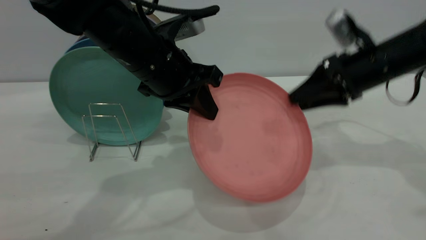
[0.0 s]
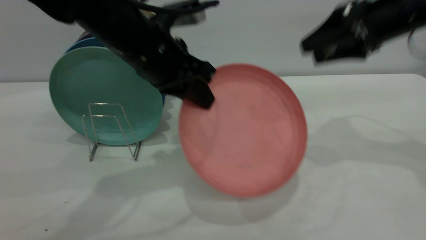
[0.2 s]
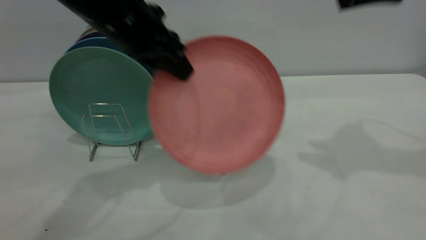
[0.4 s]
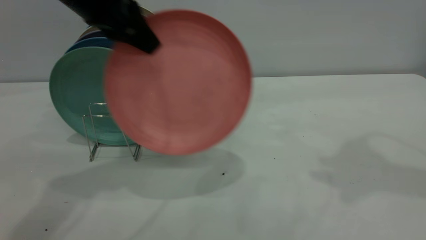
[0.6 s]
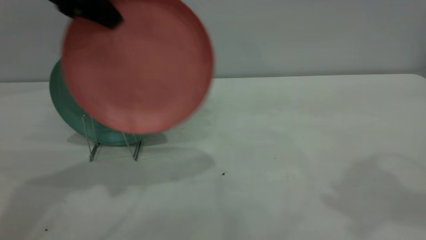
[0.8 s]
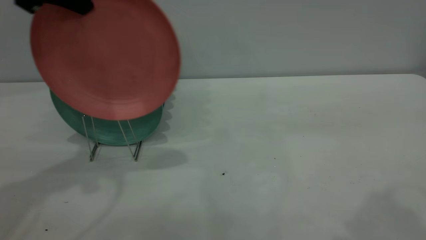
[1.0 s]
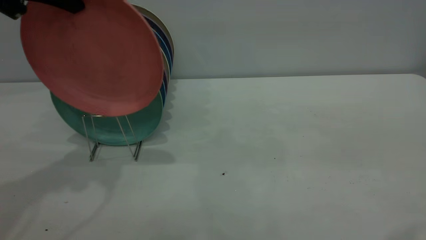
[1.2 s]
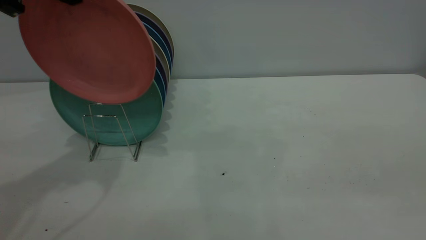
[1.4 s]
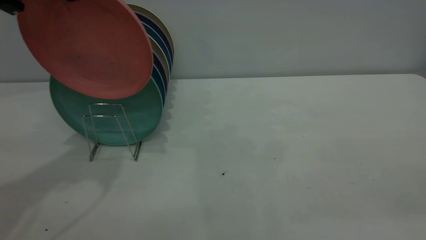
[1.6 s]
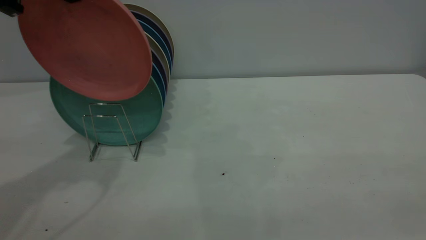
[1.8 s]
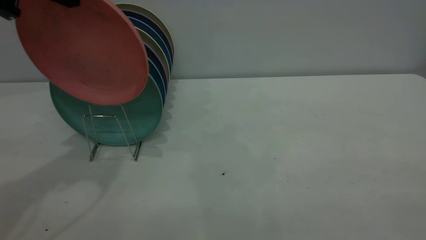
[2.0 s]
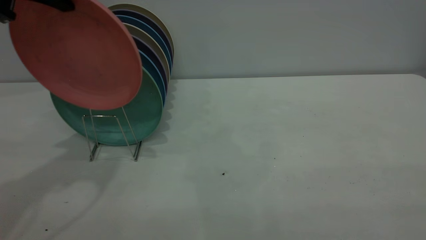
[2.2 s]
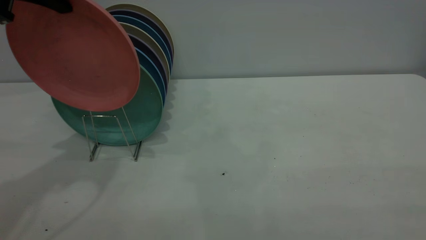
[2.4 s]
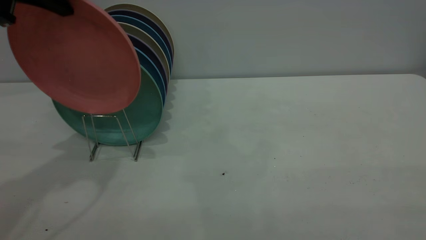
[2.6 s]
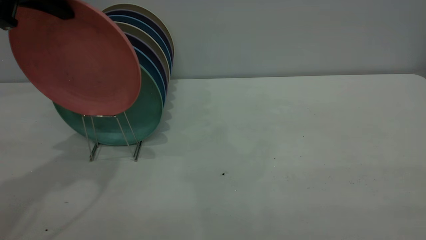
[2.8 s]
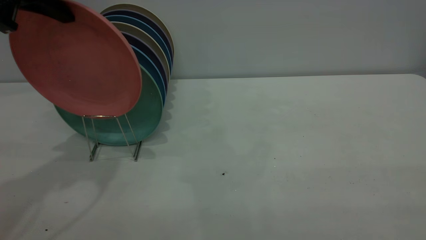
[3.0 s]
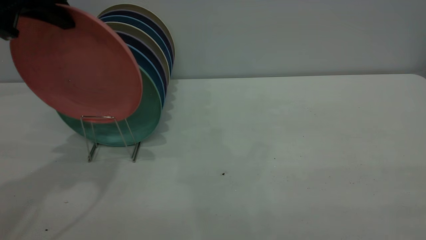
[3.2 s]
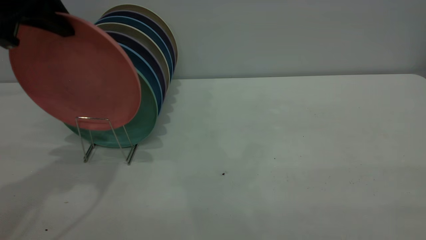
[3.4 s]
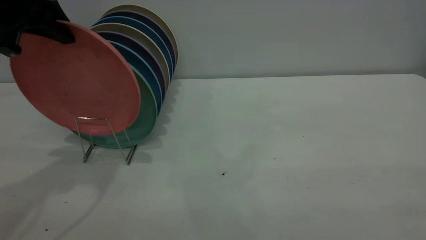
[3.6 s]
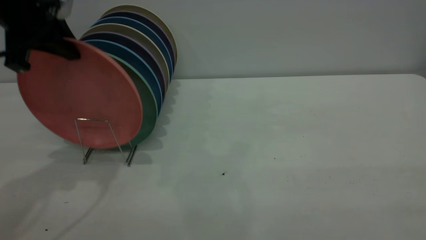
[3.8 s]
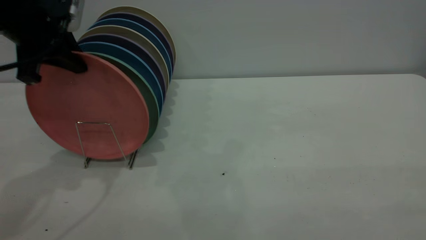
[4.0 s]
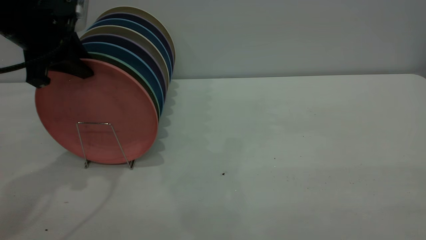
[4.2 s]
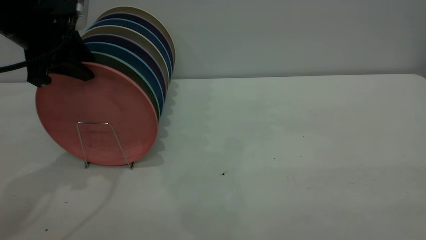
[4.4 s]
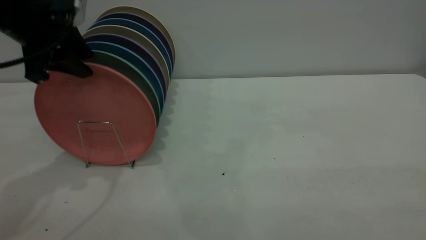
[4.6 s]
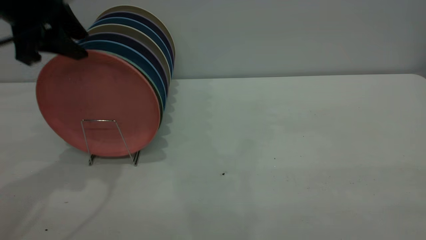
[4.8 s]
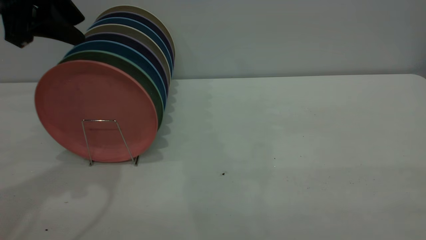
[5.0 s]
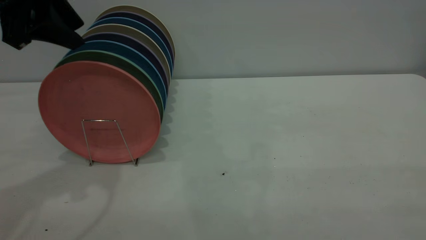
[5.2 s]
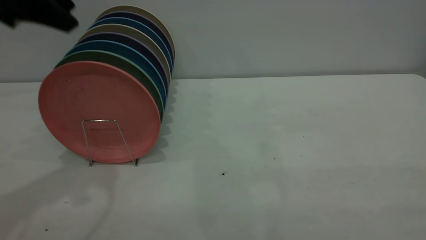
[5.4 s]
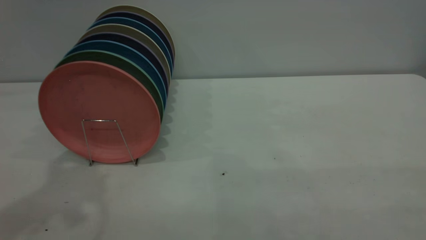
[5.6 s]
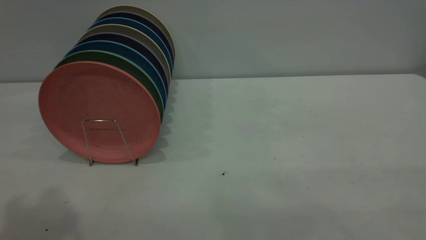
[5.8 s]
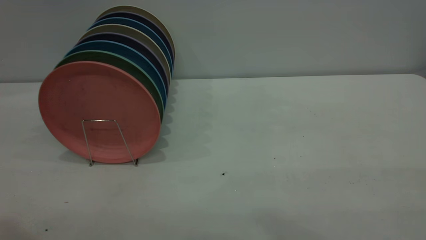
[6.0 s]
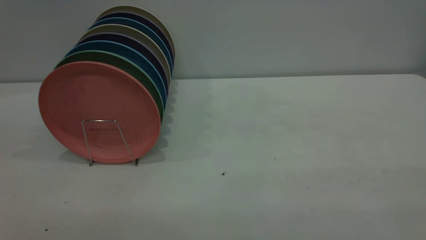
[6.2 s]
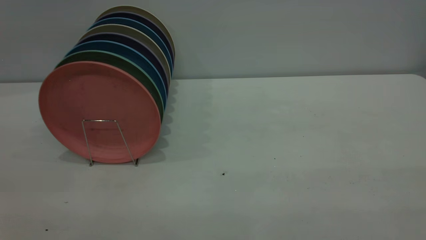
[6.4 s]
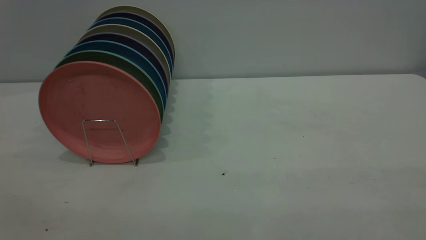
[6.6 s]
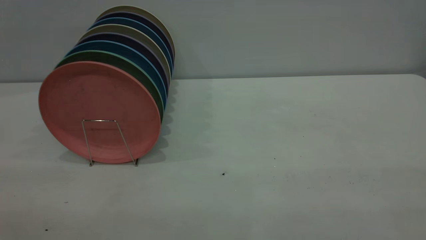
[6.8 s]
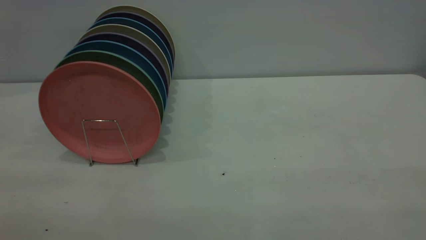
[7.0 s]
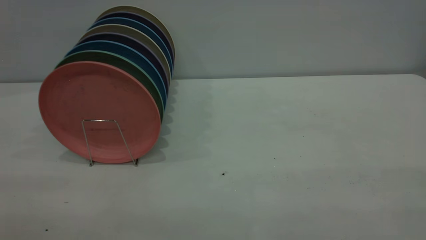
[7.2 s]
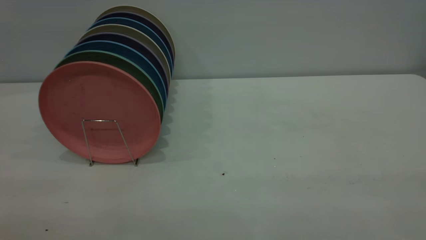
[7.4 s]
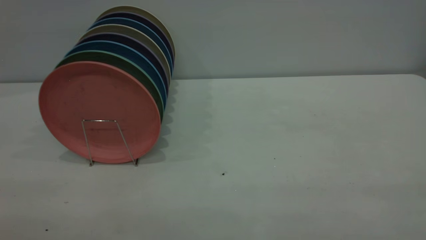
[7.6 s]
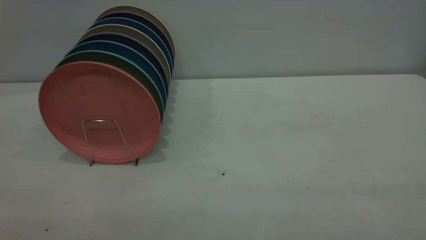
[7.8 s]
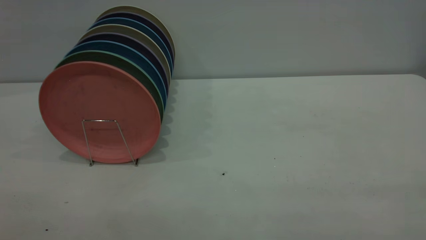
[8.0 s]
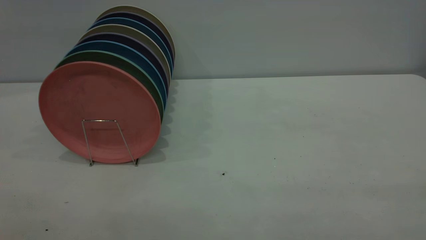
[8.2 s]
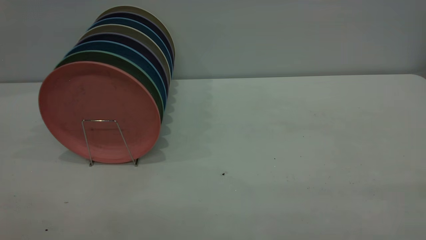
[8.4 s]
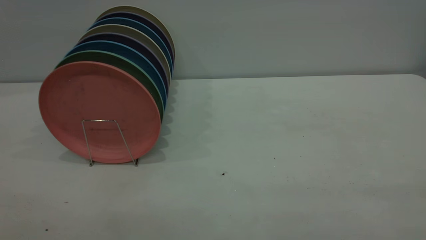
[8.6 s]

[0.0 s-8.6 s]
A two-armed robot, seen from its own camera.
Task of the whole recording: the right gripper grasp the pink plate, the right gripper pass the pink plate to the left gripper, and the left gripper place the pink plate on the plate rack.
Step, 0.0 to 1.4 s: Pass the plate from the right gripper to the left gripper.
Step, 1.6 to 5.4 s: Place the plate on the shelf.
0.0 to 1.4 s: The left gripper moves to the left and upward, about 20 cm; the right gripper goes some 35 cm backward and upward.
2.8 to 4.4 s: The left gripper goes about 10 cm downward, and opens up.
4.4 to 5.8 s: The left gripper heads upward and backward, covering some 25 cm.
